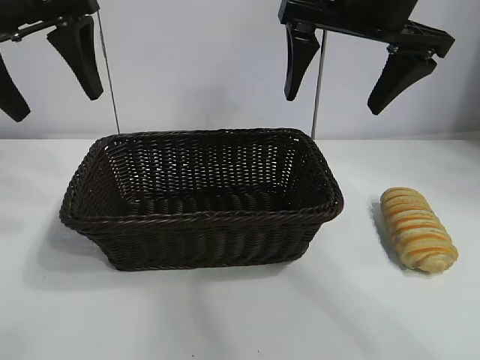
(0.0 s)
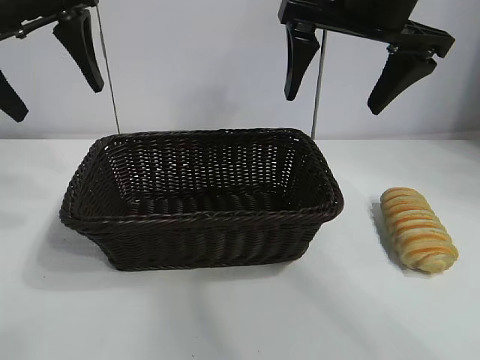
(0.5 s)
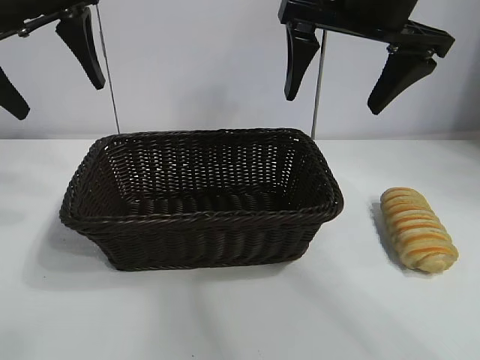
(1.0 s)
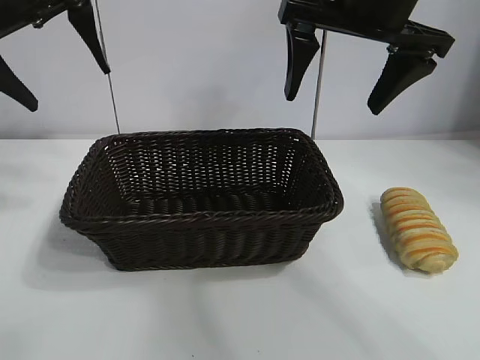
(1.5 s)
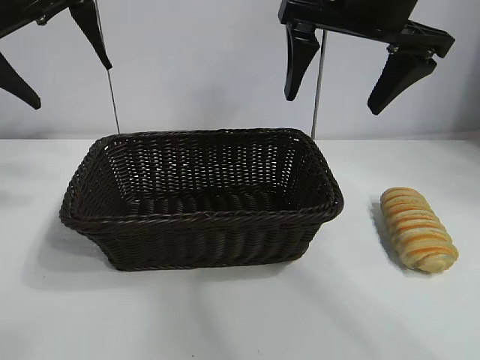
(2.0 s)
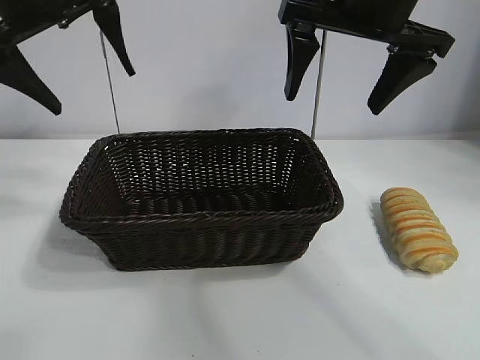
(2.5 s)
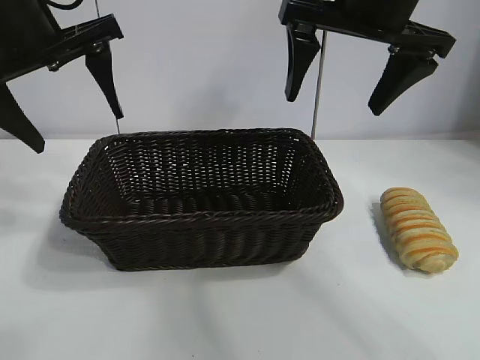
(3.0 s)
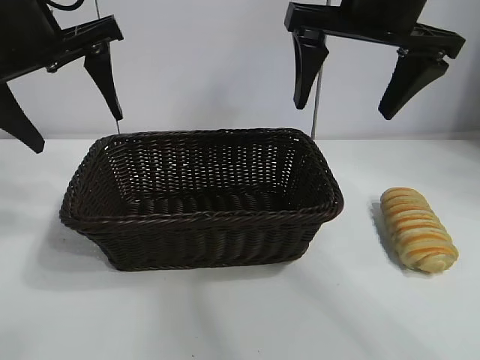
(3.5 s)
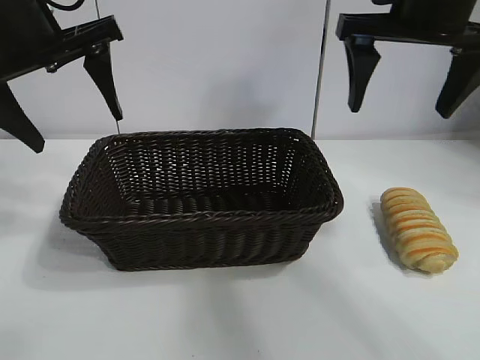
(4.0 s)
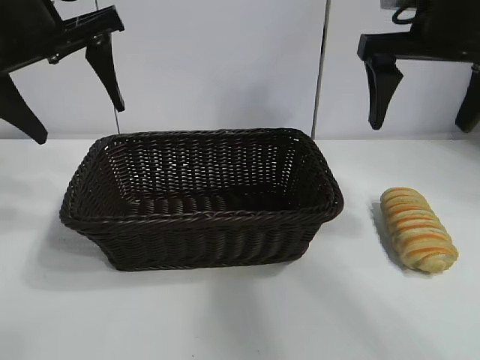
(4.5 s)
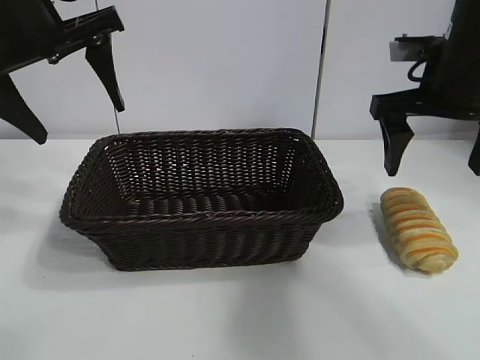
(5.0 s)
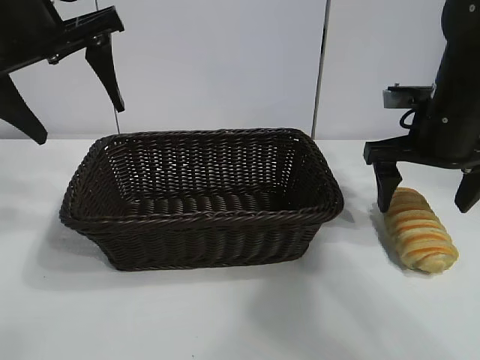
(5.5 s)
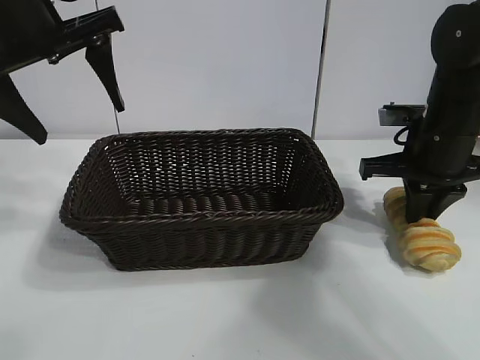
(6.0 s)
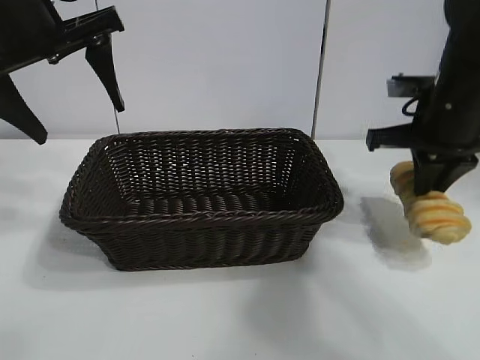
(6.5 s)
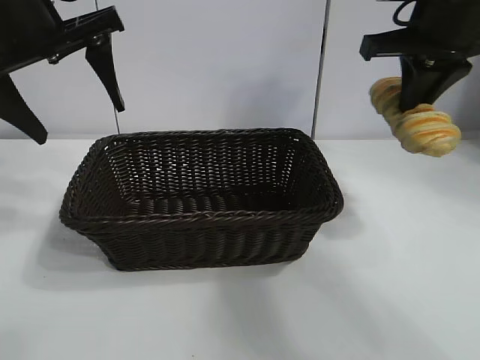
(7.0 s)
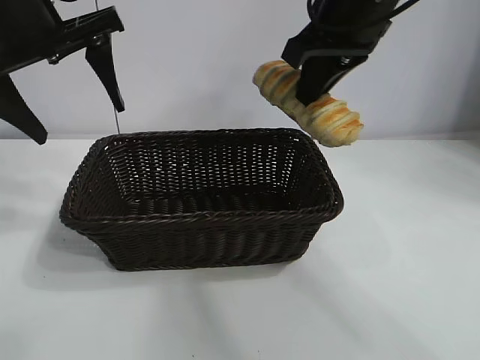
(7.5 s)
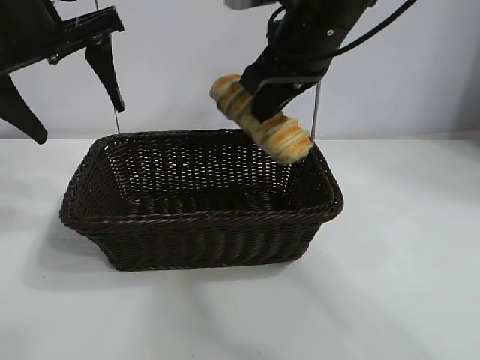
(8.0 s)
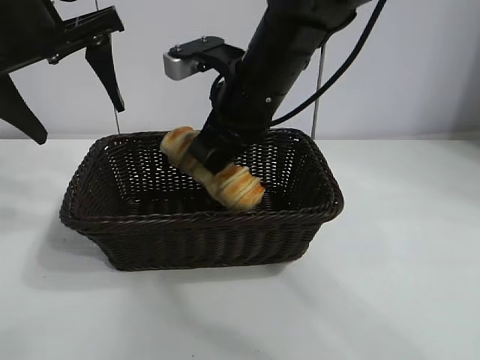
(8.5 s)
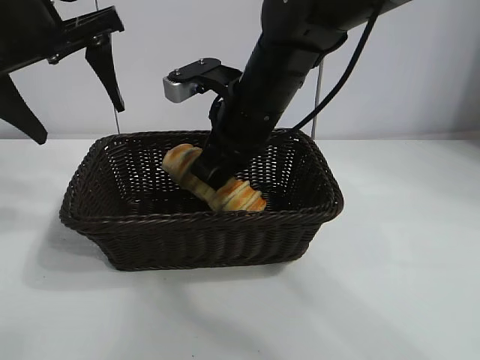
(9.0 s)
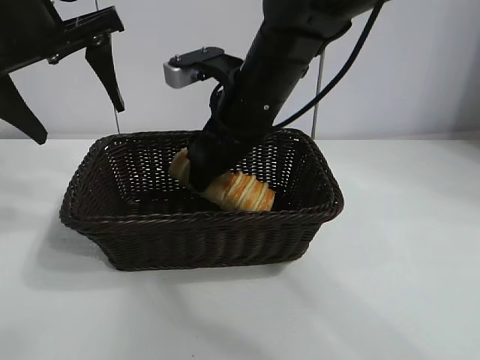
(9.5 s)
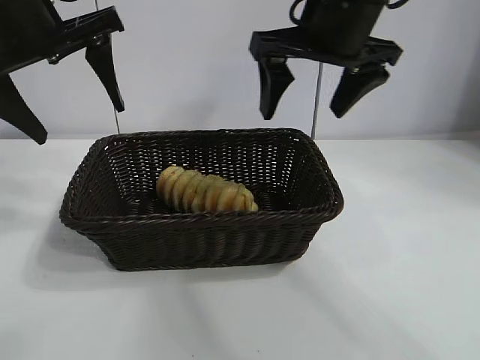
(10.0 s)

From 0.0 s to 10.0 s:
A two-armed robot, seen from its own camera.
Task of the whole recording: pick up the long bread and put it into the basket.
Step, from 0.0 s to 6.0 s: Grasp the long bread with right gripper.
Step, from 6.5 s to 9.5 s: Place the long bread in the basket with right gripper.
